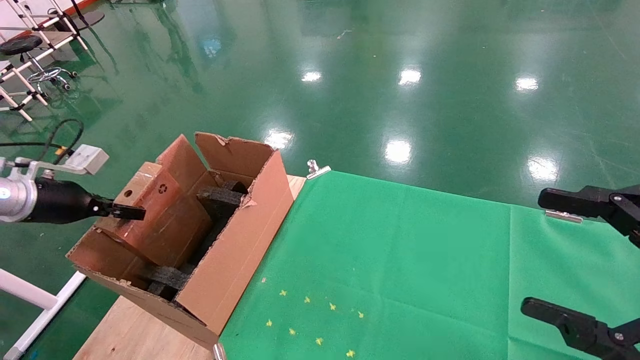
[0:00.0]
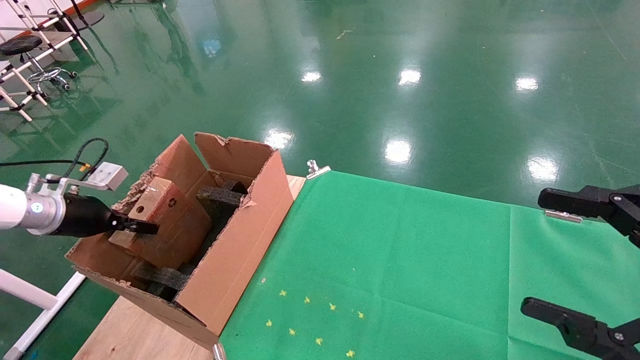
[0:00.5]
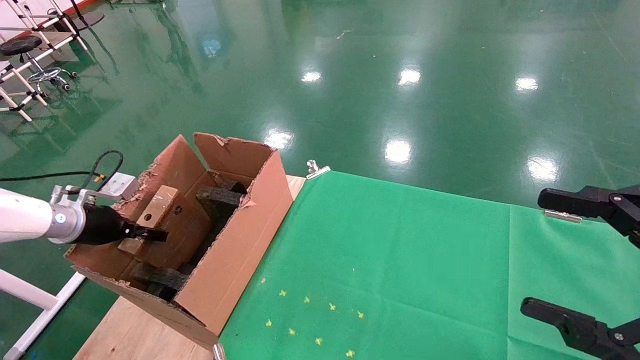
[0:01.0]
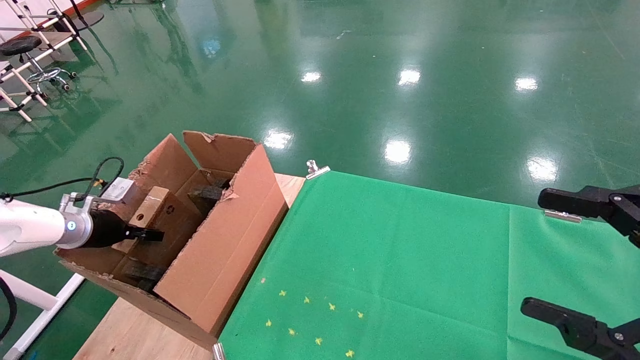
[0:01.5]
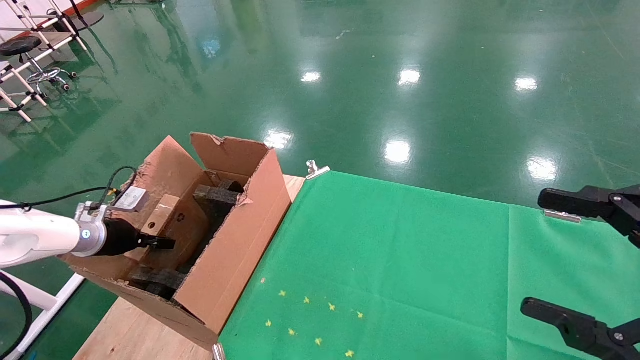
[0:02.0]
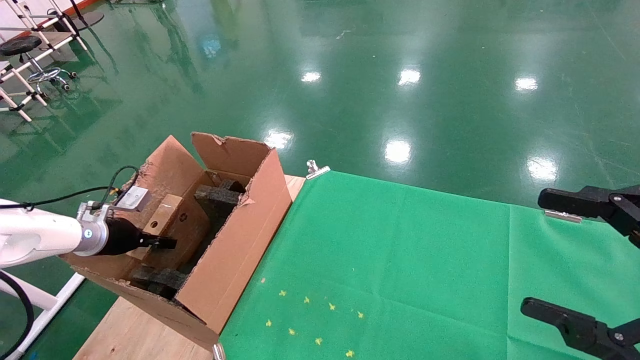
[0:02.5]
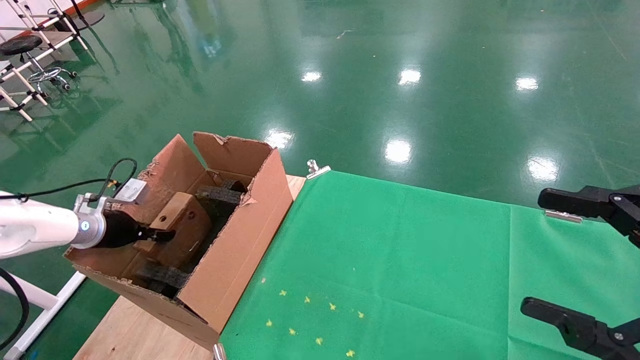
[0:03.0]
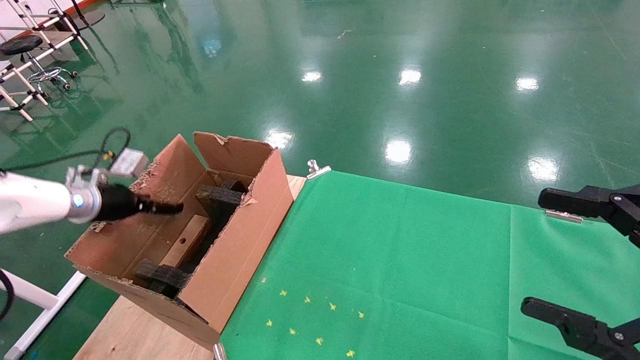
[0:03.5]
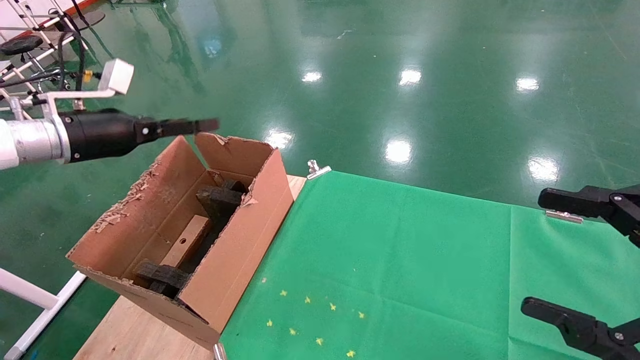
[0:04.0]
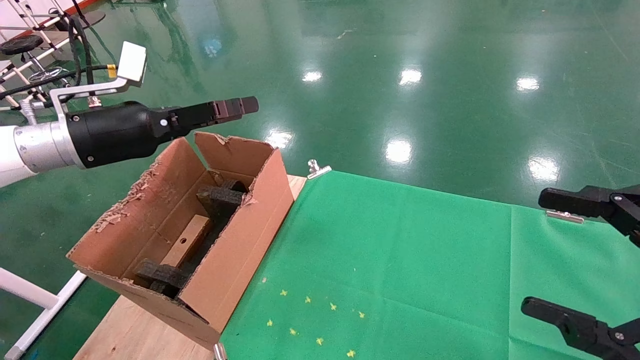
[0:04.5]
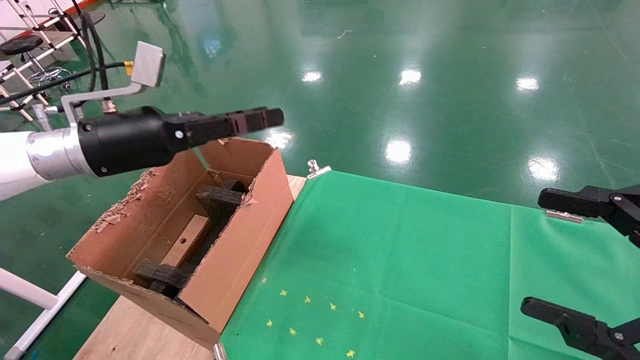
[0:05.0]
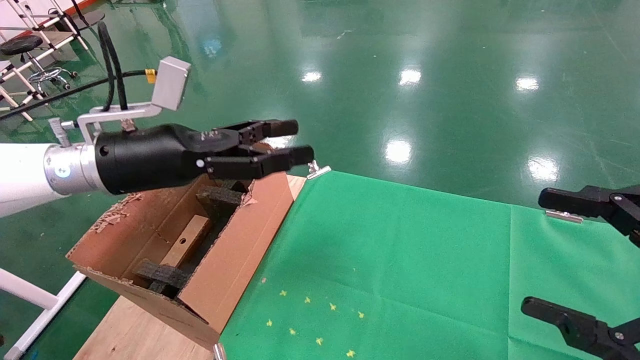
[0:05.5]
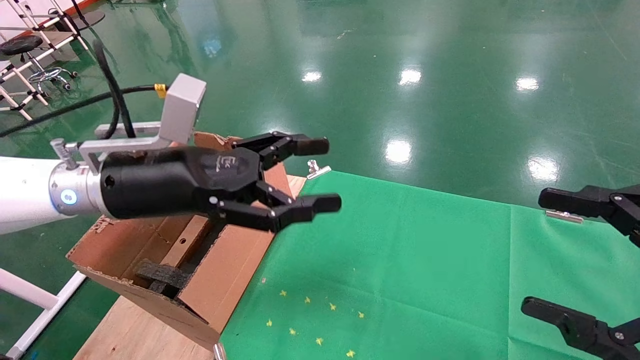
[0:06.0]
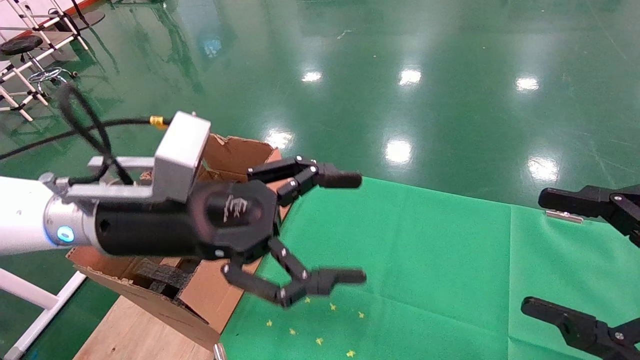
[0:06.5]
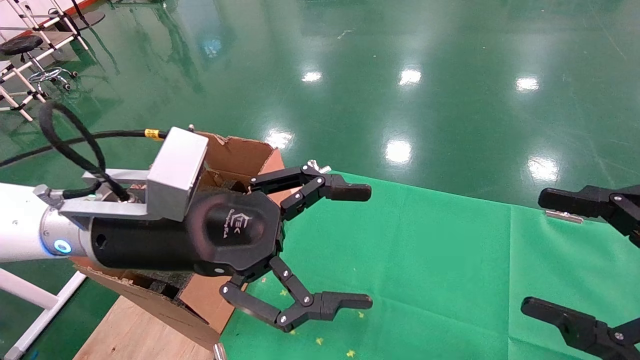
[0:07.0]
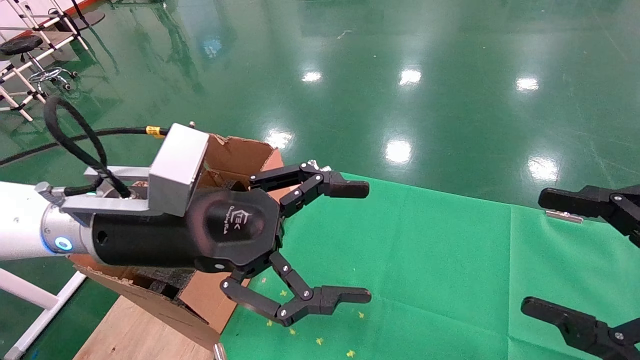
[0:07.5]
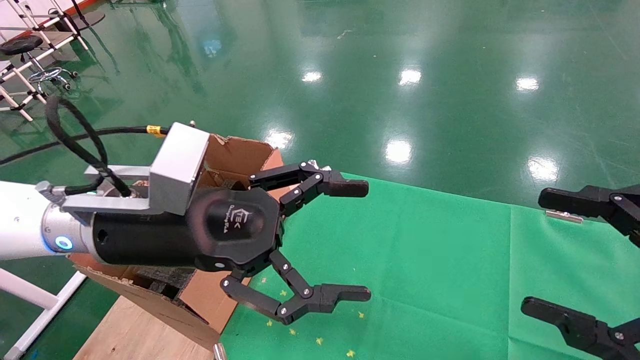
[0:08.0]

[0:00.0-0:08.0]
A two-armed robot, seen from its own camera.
Task of the whole recording: using a robotic arm to pick up a cardboard box and palace it the carton.
Step, 0:00.0 to 0:03.5: Place the mouse and the power cord paper box into the container.
0:00.0 to 0:02.0: The left gripper shifts about 10 cm downward and forward.
0:02.0 to 0:04.0: The left gripper shifts some 20 cm upward and to the right, and opens.
0:04.0 to 0:06.0: The left gripper travels to the right and backward by roughly 20 cm.
0:06.0 to 0:08.0: The left gripper changes place by some 5 cm.
